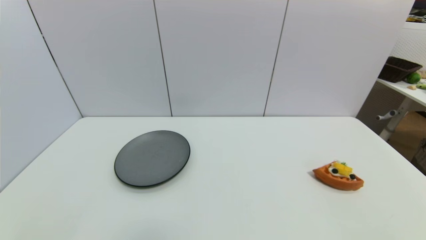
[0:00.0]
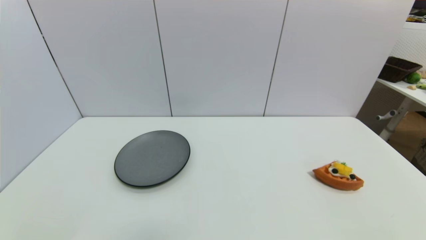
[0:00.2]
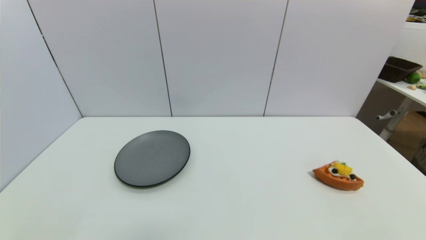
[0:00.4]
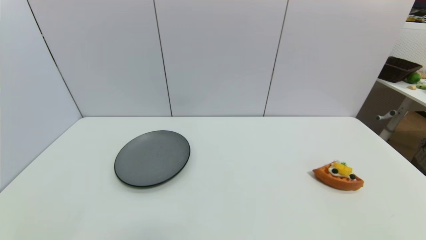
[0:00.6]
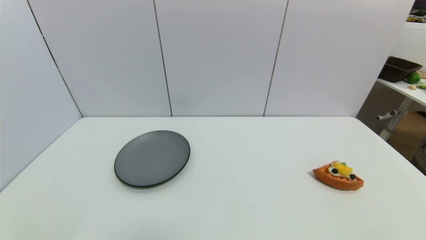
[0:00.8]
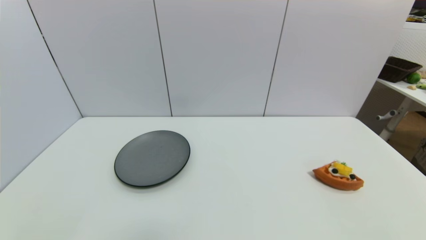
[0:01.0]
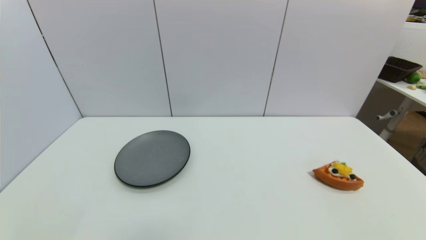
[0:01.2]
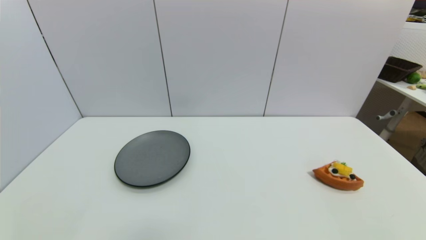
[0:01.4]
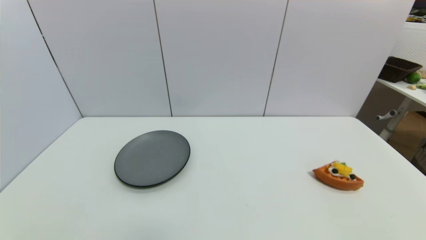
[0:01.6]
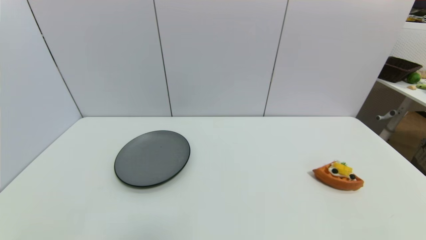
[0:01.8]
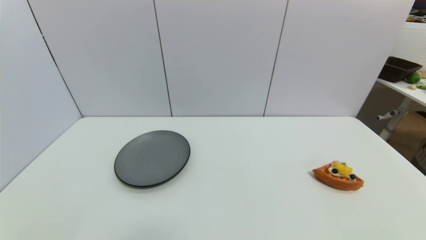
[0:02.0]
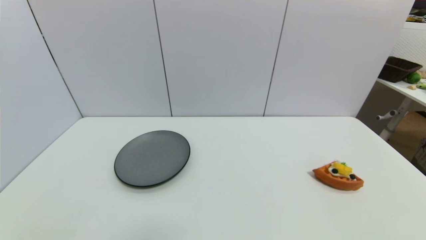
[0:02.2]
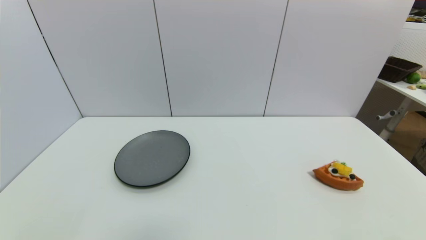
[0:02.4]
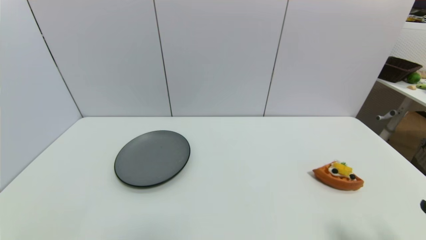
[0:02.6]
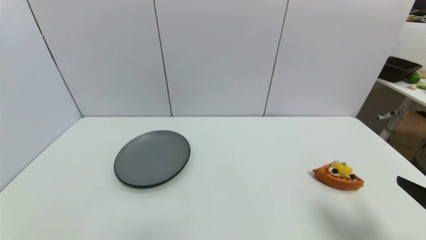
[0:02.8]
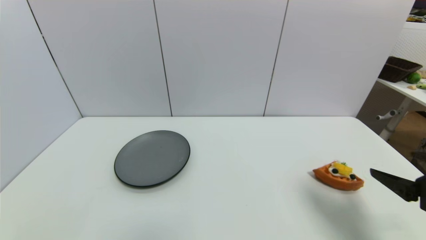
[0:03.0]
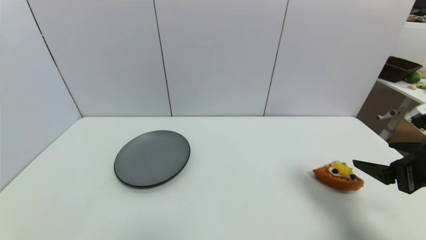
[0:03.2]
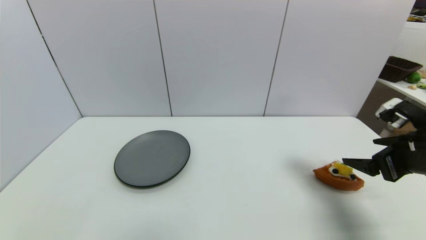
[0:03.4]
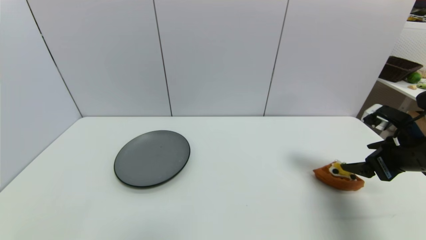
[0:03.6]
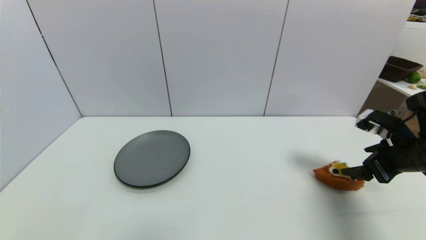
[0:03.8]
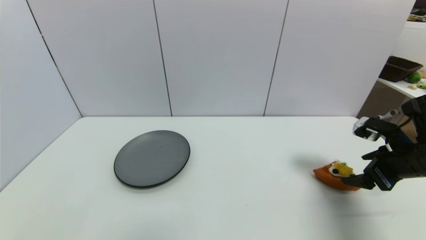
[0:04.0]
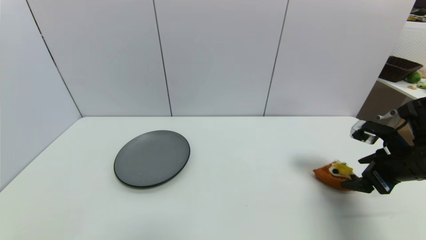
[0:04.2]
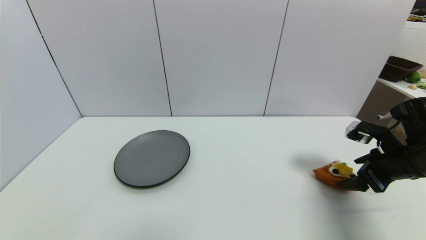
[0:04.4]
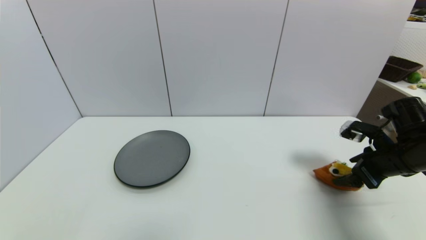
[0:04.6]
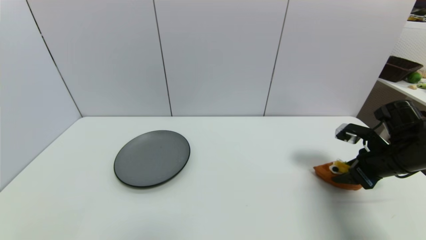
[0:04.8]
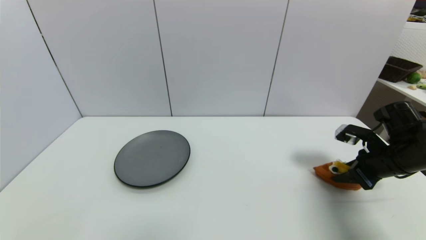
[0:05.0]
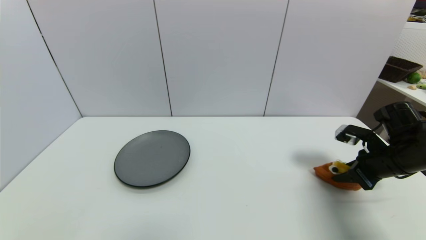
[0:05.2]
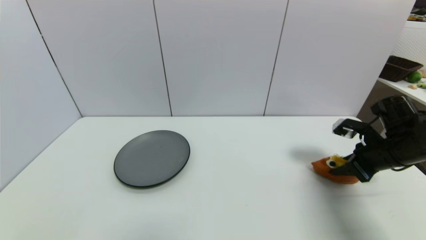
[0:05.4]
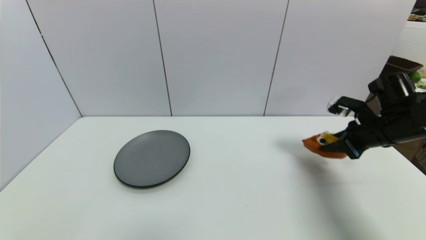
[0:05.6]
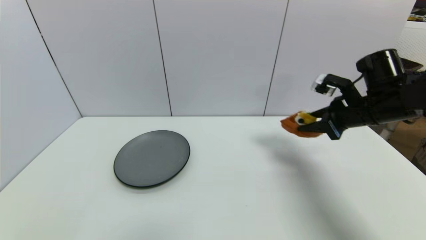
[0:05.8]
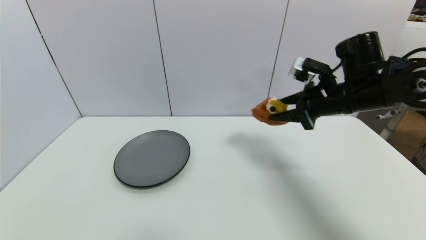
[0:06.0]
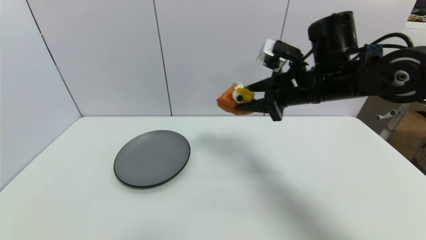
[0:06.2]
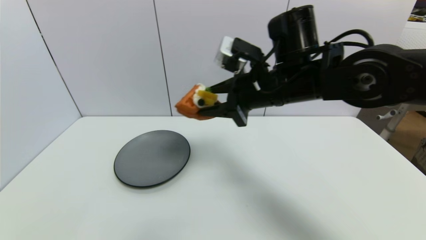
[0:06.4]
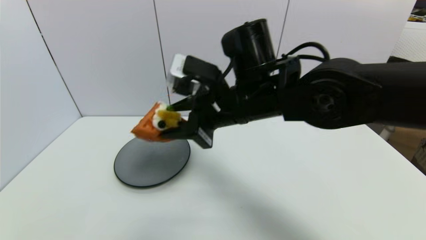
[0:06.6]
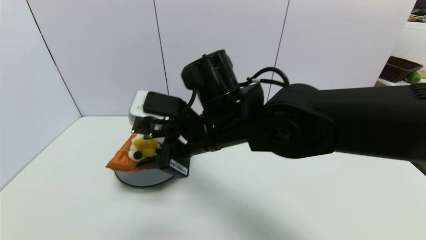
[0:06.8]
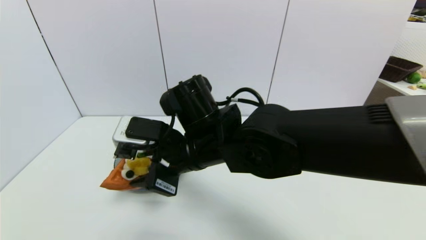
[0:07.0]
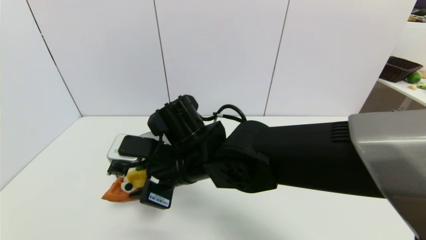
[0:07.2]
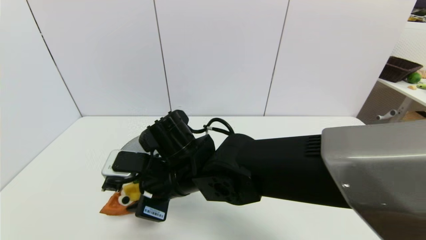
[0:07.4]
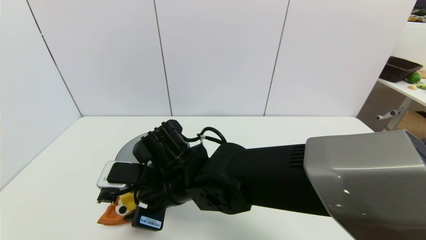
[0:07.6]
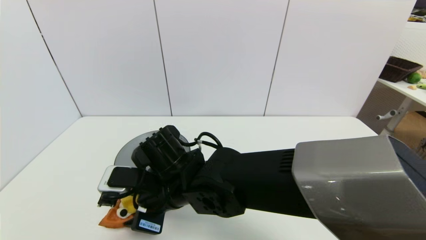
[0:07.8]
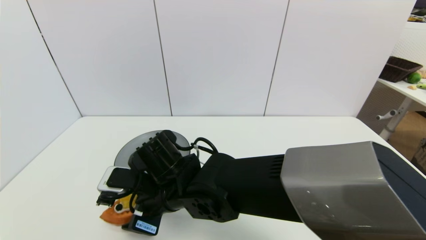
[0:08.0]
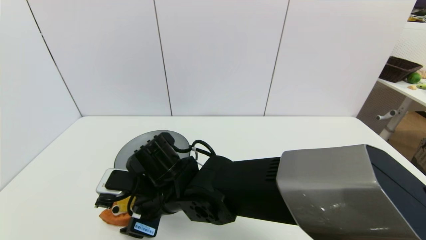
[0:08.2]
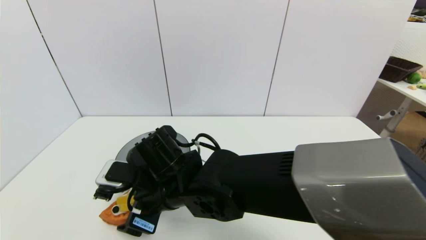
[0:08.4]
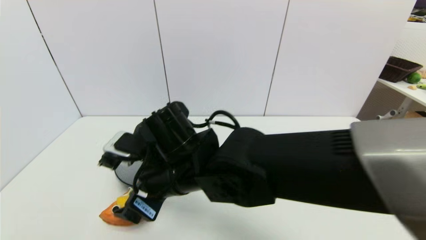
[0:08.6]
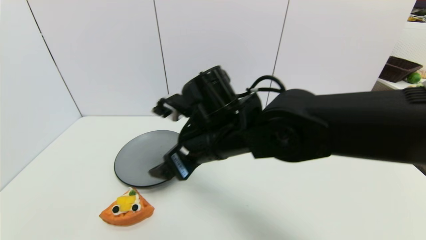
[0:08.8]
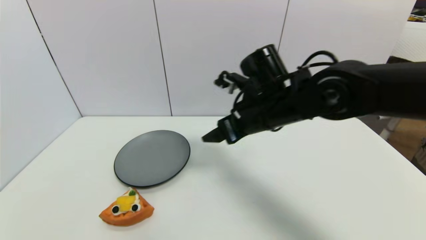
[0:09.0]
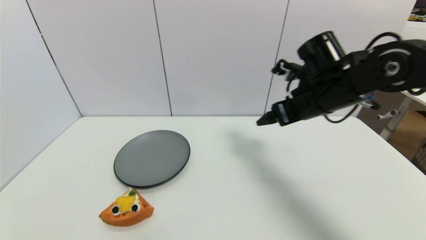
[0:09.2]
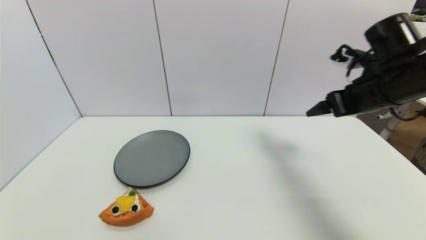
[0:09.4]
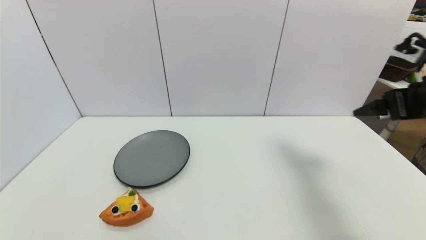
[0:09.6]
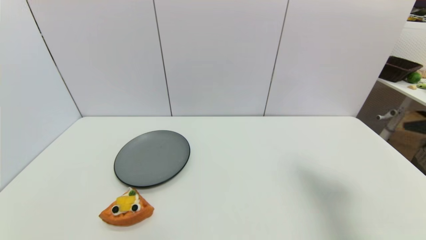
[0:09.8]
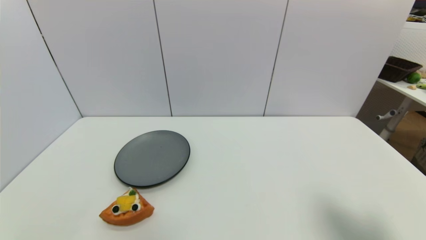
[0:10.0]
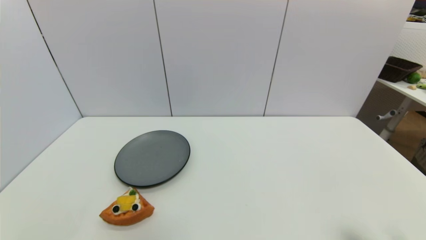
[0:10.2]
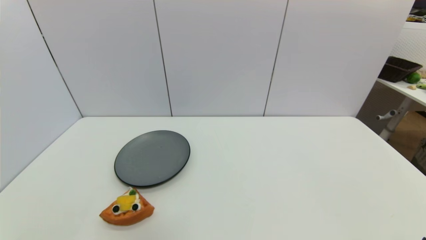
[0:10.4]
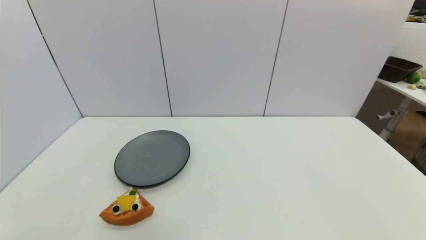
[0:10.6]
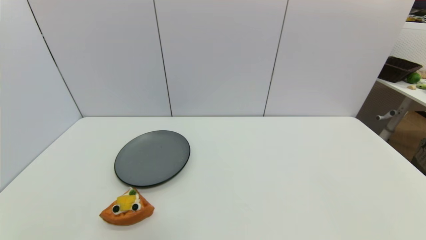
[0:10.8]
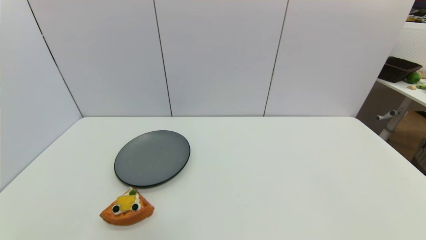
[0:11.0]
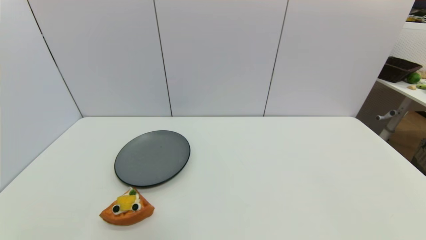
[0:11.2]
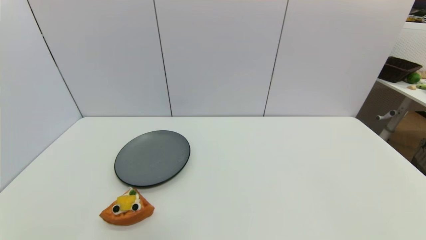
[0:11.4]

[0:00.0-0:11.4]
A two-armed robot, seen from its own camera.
Step, 0:02.8 to 0:05.2: Grasp the pizza with right gripper.
Step, 0:05.6 to 0:08.2: Place the pizza on the table with right gripper.
0:00.0 to 0:01.4: Neither gripper changes place.
0:01.4 to 0:02.8: The right gripper shifts some 15 cm upward and forward.
0:02.8 to 0:04.2: The right gripper travels forward by about 15 cm.
0:04.2 to 0:05.6: The right gripper goes roughly 5 cm forward, and closes up.
0:05.6 to 0:07.2: The right gripper heads to the left, covering some 40 cm.
0:07.2 to 0:08.6: The right gripper opens up.
0:08.6 to 0:10.0: The right gripper travels to the right and backward by approximately 40 cm.
0:10.0 to 0:11.4: The right gripper heads downward and backward, covering about 20 cm.
